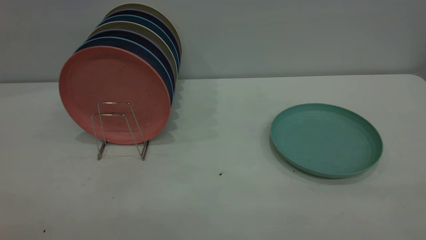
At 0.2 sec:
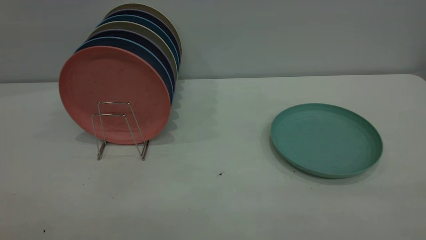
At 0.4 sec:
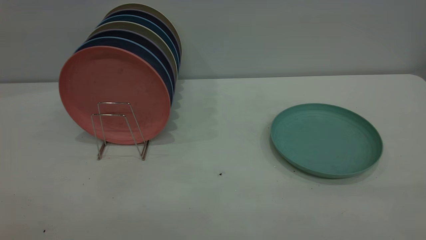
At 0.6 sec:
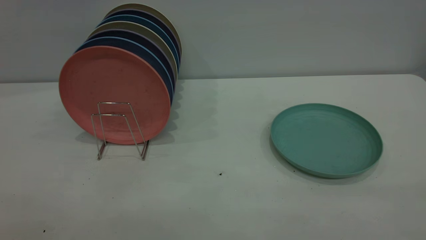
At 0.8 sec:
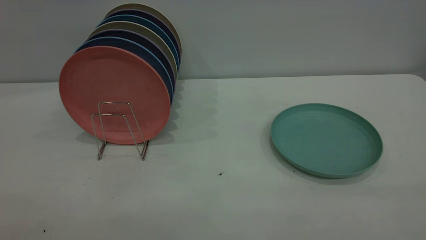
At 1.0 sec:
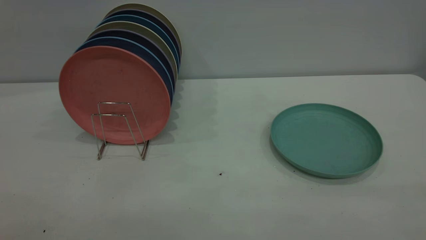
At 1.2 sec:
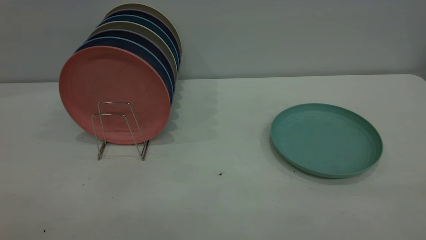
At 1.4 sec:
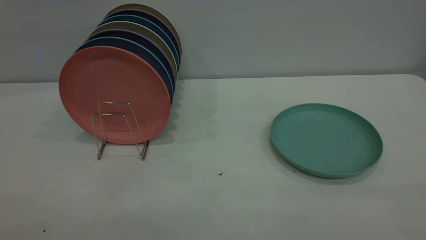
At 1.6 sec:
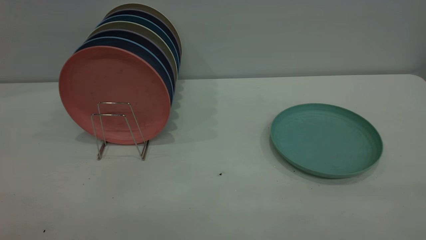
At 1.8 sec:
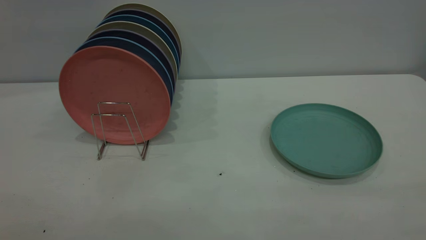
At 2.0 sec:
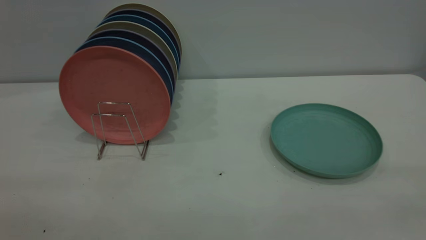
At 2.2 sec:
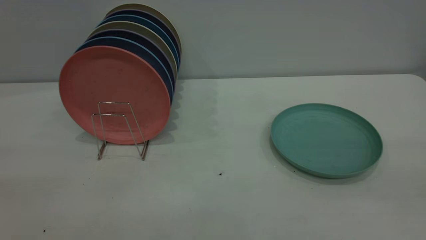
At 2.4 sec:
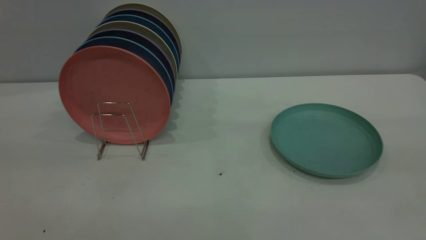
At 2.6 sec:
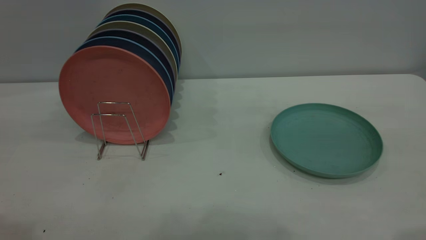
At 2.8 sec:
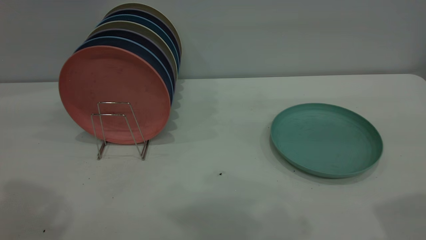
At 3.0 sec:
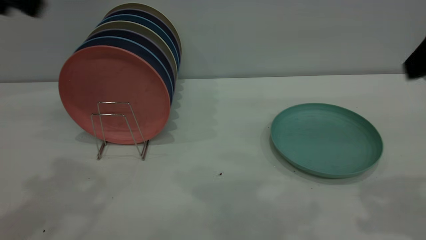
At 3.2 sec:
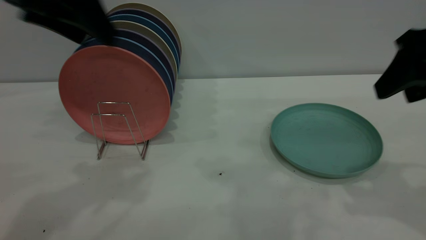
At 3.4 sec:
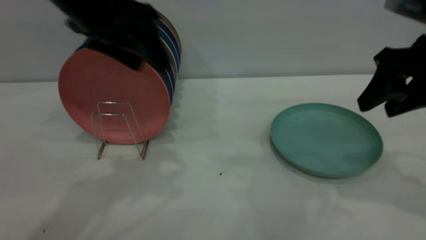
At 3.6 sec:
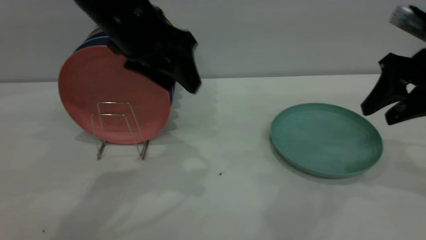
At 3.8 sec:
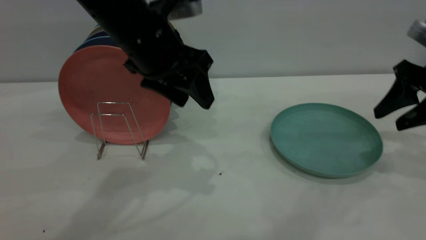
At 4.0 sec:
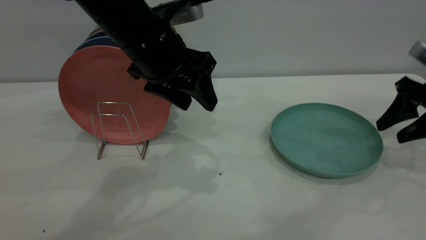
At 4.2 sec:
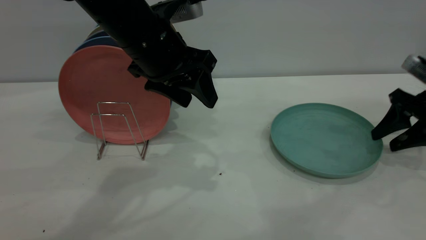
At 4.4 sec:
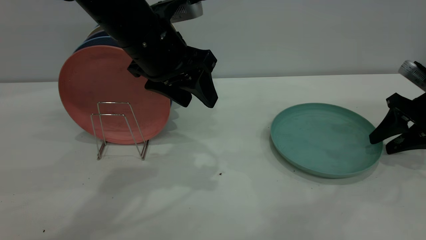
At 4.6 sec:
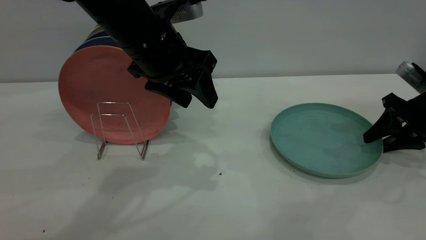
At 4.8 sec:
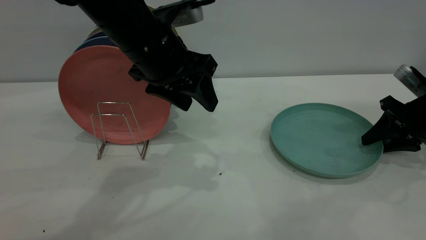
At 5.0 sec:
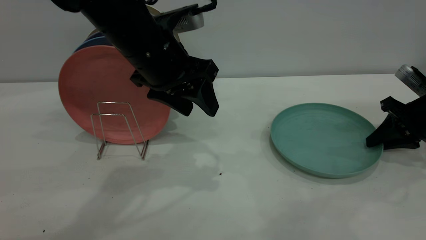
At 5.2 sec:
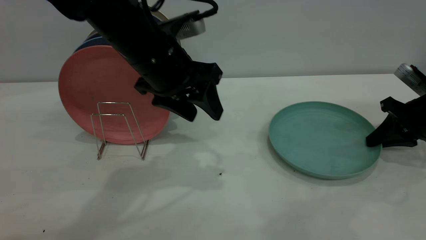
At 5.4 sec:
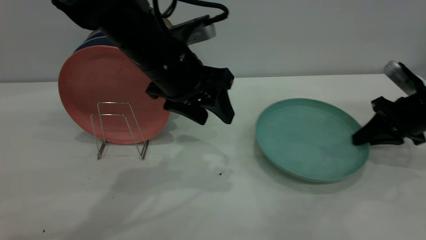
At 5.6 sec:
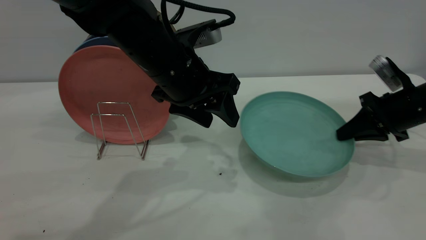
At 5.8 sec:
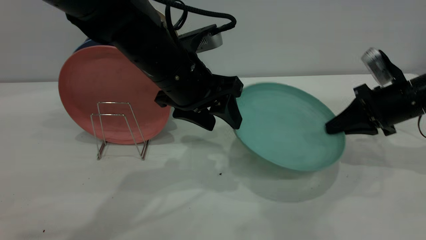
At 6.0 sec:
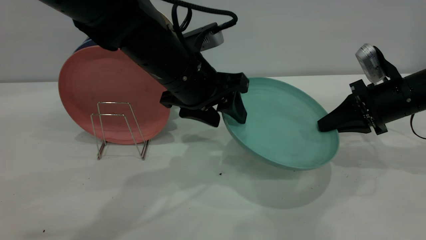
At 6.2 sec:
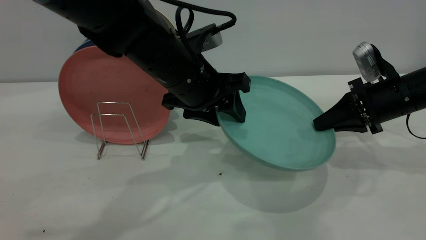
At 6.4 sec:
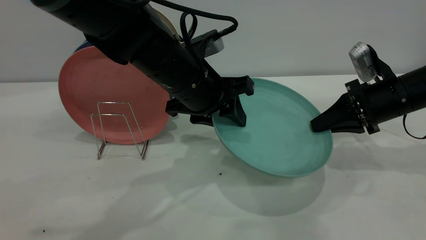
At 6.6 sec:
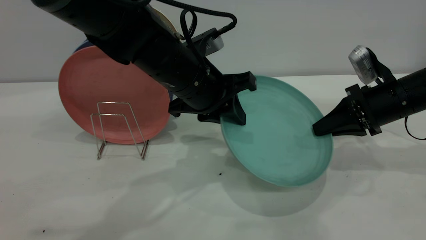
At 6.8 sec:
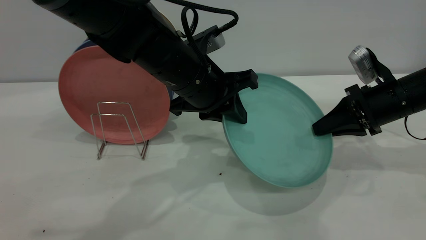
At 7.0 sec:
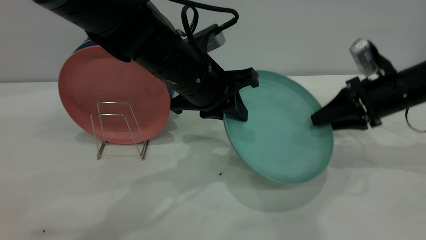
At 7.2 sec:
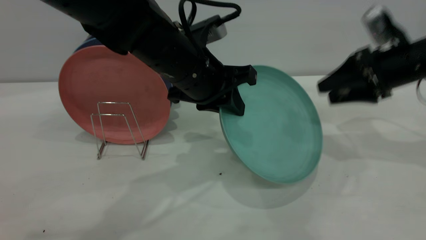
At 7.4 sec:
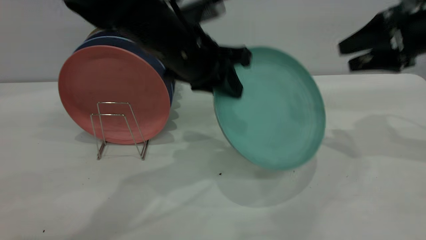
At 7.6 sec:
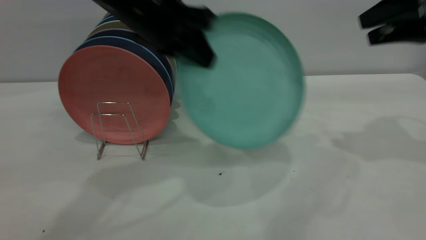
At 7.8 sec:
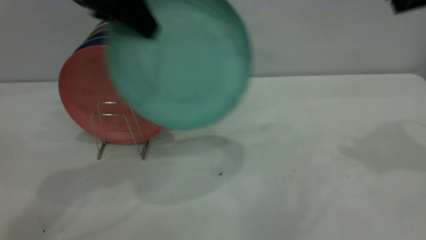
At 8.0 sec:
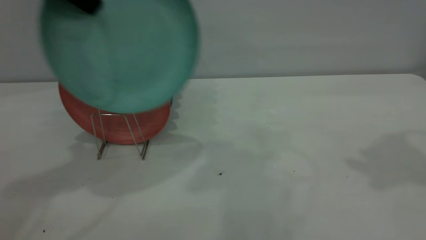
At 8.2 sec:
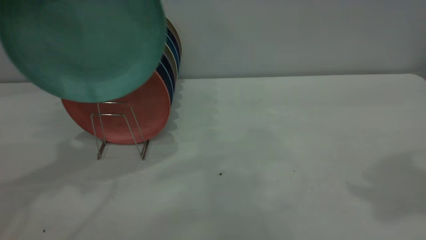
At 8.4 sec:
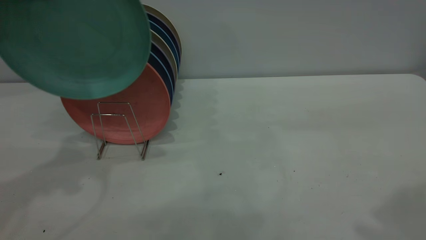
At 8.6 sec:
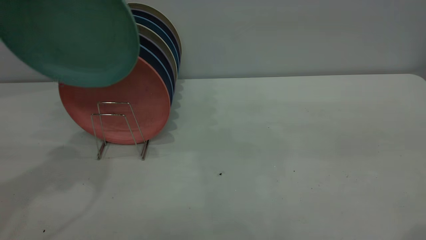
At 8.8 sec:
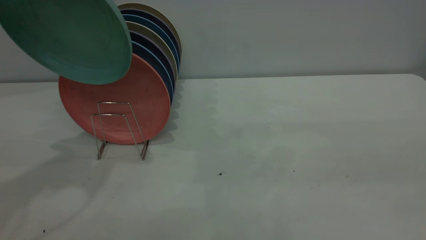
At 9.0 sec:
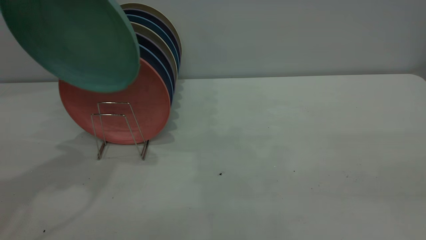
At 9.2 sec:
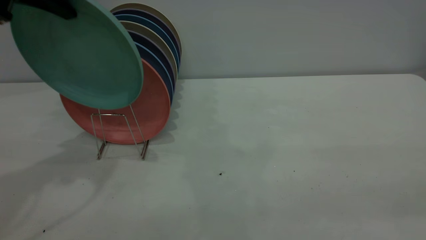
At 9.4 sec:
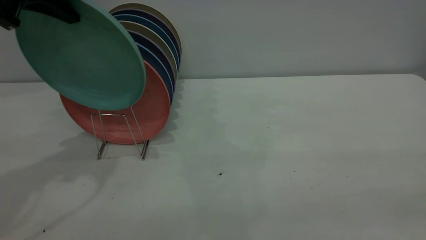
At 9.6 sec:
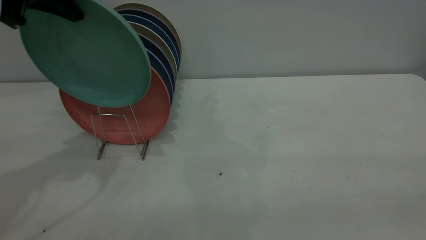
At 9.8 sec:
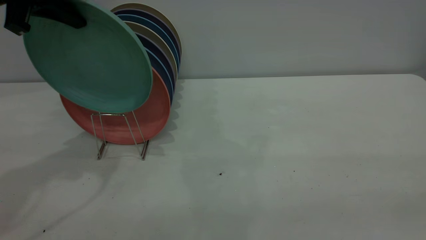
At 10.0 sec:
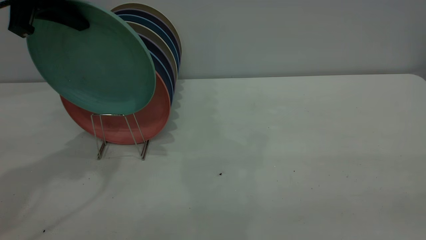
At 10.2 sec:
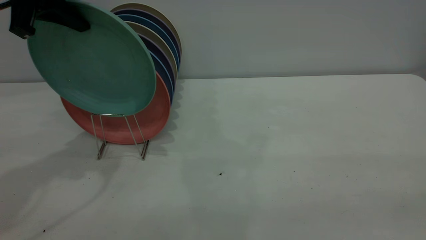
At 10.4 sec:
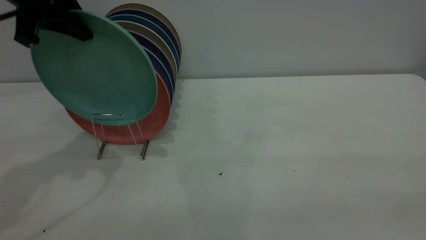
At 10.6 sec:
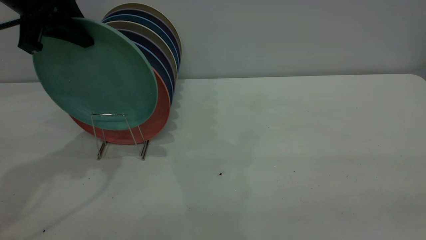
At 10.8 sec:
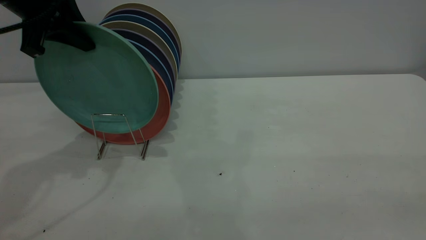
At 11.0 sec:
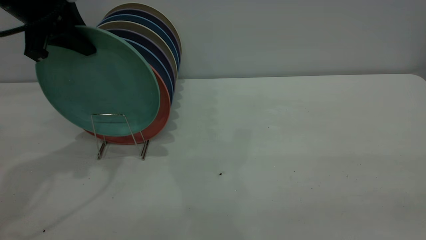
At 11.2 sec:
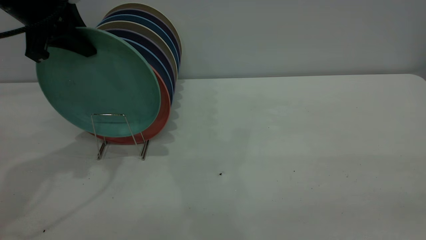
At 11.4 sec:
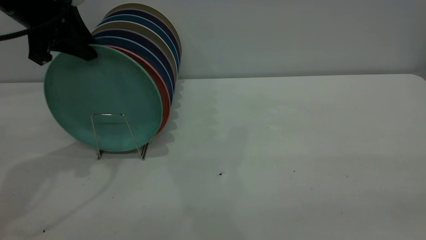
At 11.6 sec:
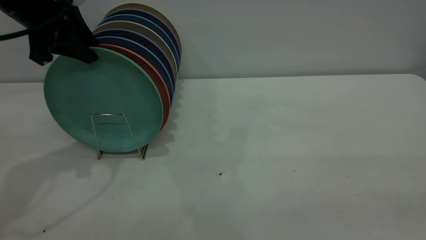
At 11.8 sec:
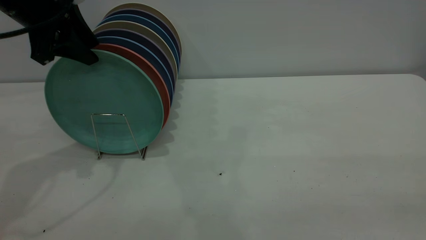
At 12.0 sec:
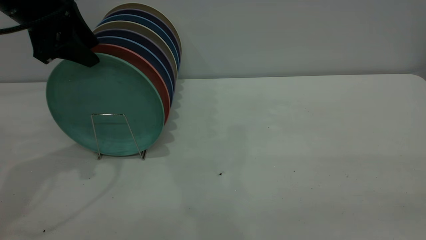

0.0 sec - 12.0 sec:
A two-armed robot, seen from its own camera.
Task of the whole recording: the right gripper grasp the green plate, the right gripper pass the green plate to the left gripper, and the left gripper place the green plate on the plate rack.
Step, 0.0 sec - 5.4 sec: Pick up the plate with the right gripper.
Step, 5.6 sec - 7.6 sec: Pass the plate from the right gripper to the left gripper.
0.0 sec - 1.6 sec: Both grippers stay about where they are.
1.6 sec - 3.0 sec: Both grippers move forward, about 30 cm.
3.0 sec - 4.4 sec: The right gripper shifts about 25 cm downward, forward and to the right; the left gripper is displaced to the right, downward and forward by about 20 cm.
4.4 sec - 6.0 sec: The left gripper moves roughly 5 cm. The right gripper travels to the left by roughly 5 cm, and closes its fingers.
6.0 sec - 7.6 sec: The right gripper heads upward, covering approximately 15 cm, and opens up; the left gripper travels upward and to the left by approximately 10 cm, and closes.
7.6 sec - 9.0 sec: The right gripper is displaced backward by about 30 cm. The left gripper travels to the left and upward by about 15 cm.
9.0 sec - 10.4 sec: The left gripper is displaced downward by some 5 cm.
10.4 sec - 12.0 sec: The left gripper opens up.

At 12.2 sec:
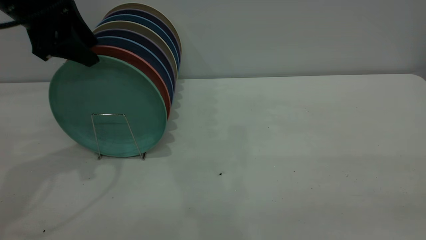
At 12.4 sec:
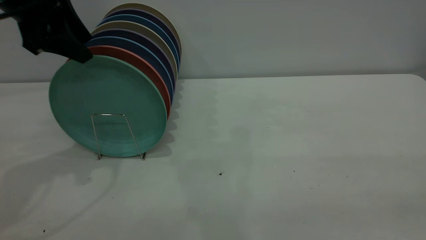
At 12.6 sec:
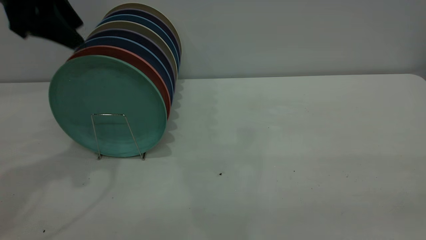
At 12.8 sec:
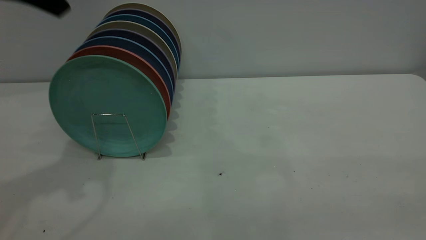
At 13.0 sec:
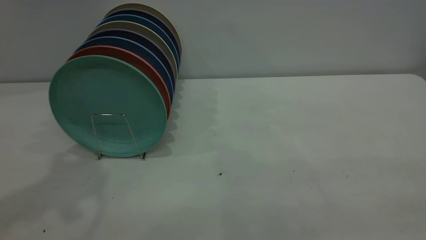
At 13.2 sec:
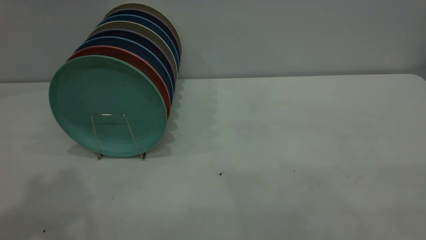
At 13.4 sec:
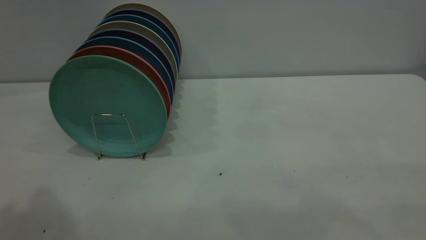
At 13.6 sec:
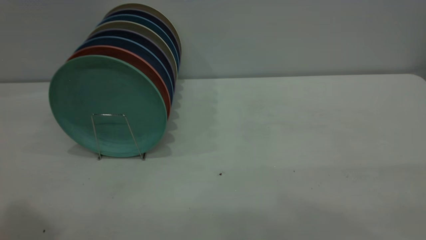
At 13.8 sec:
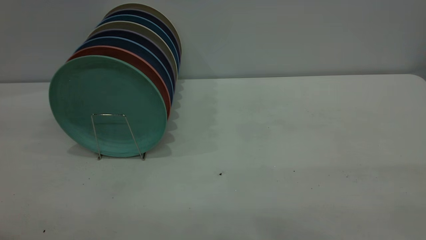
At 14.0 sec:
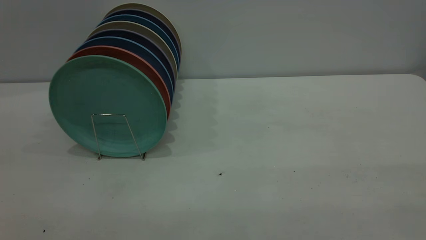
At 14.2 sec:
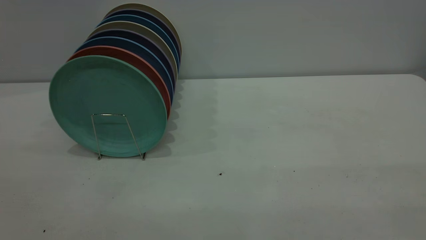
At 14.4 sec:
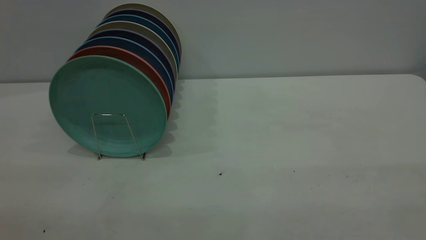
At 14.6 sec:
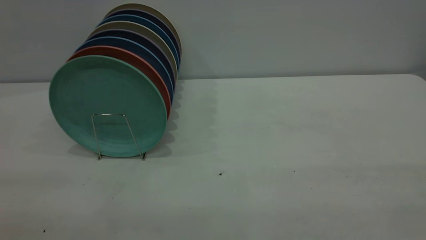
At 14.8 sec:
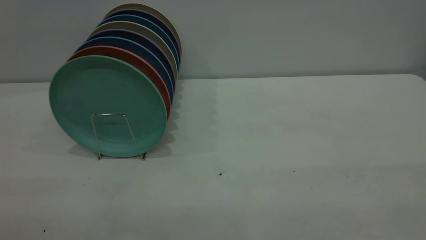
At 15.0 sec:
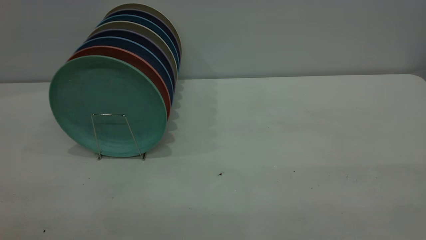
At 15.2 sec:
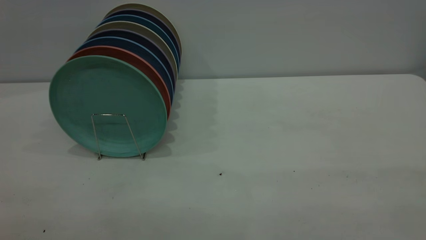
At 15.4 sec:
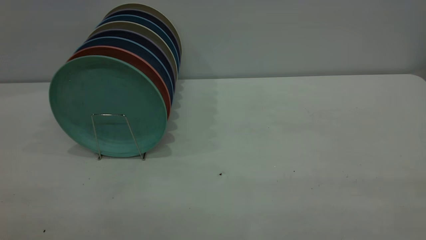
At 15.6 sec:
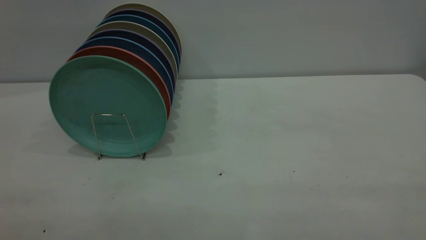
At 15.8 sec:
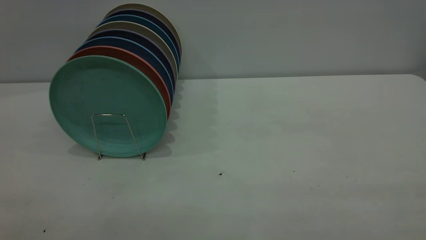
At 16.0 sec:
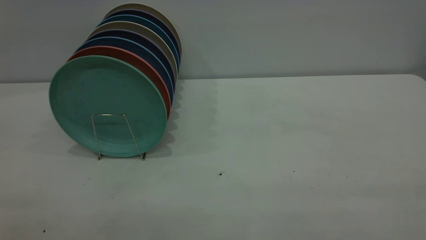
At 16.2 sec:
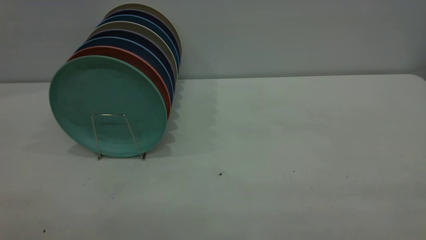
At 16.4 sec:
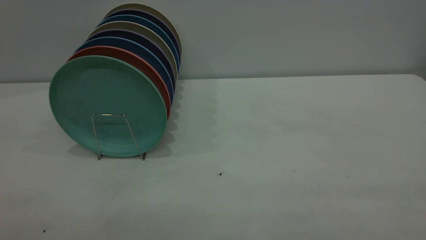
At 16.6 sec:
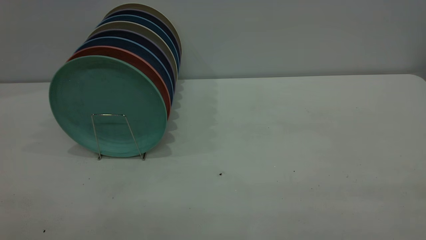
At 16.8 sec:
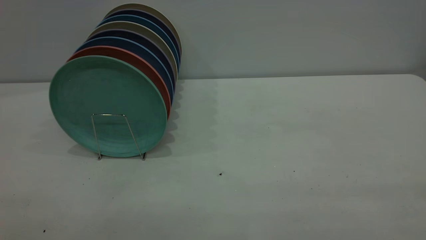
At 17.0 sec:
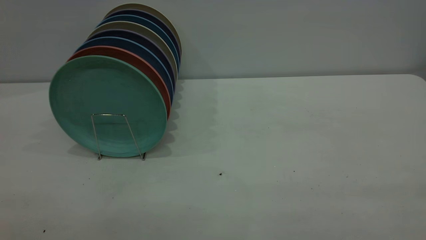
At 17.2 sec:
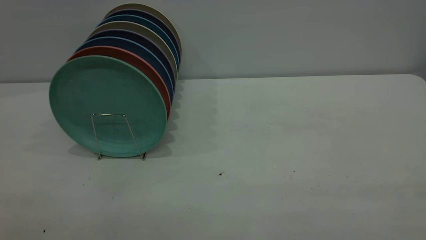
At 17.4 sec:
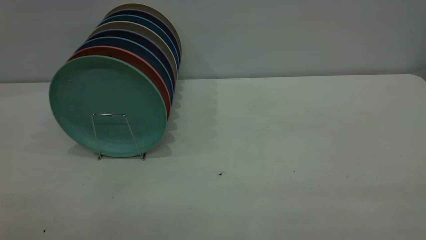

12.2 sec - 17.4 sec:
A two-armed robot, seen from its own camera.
Task of the whole recording: the right gripper grasp the green plate, the right gripper pass the green plate to the left gripper, and the left gripper place the green plate on the plate rack.
12.2 sec - 14.0 sec: The left gripper goes roughly 30 cm backward and upward.
15.6 sec - 17.4 sec: Neither gripper changes place.
